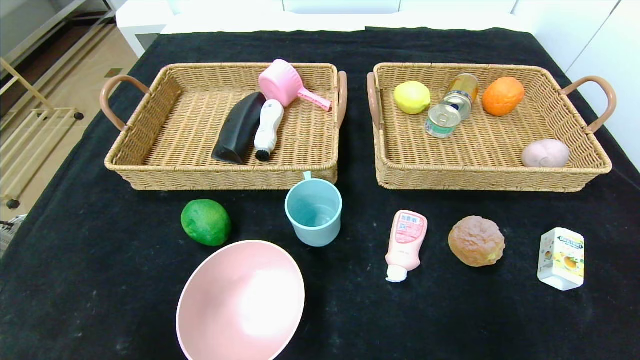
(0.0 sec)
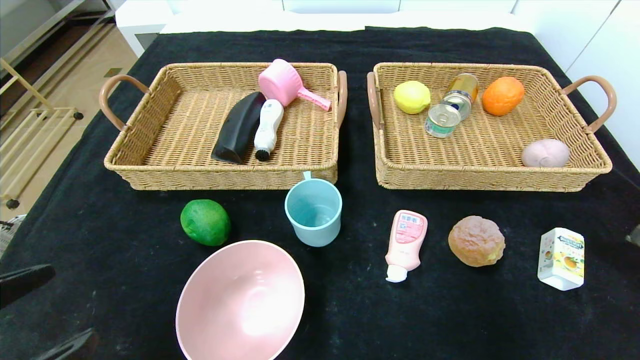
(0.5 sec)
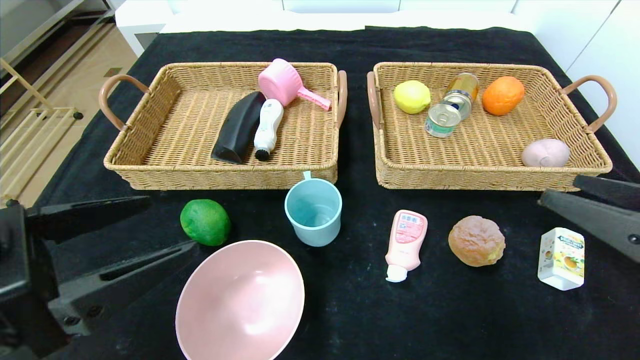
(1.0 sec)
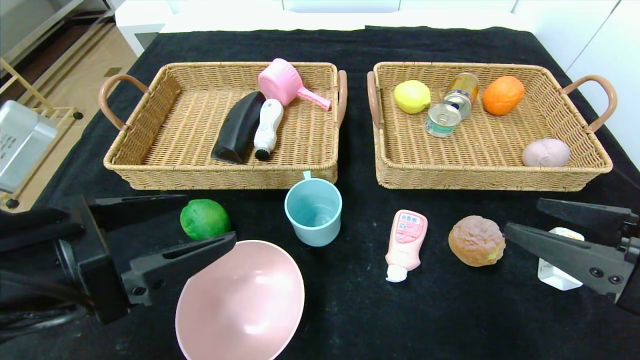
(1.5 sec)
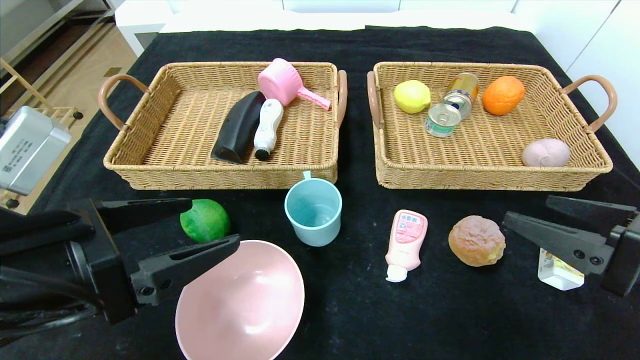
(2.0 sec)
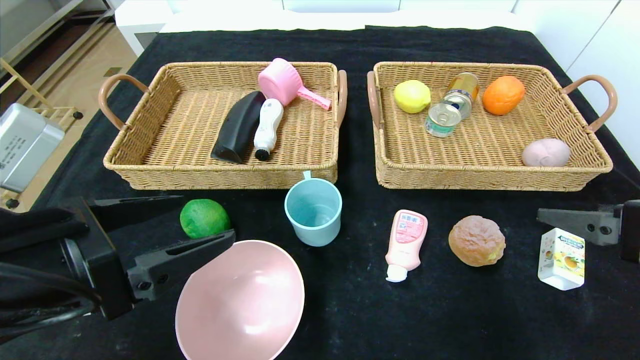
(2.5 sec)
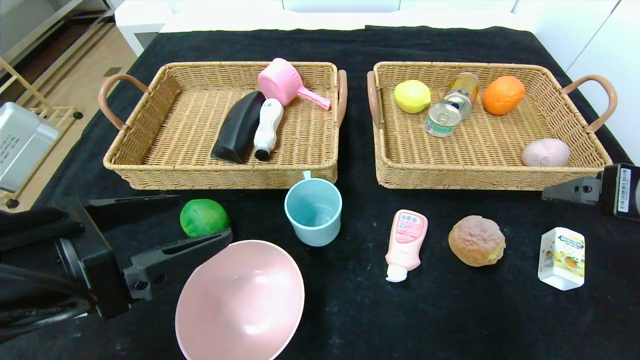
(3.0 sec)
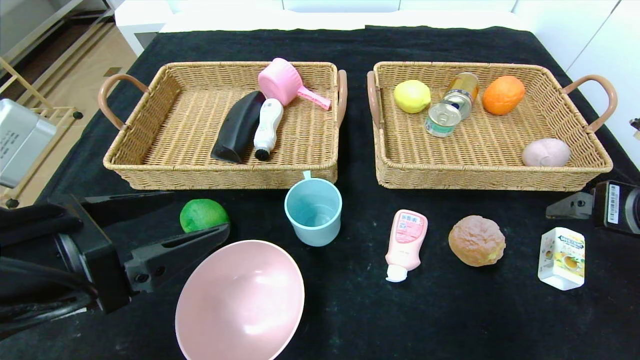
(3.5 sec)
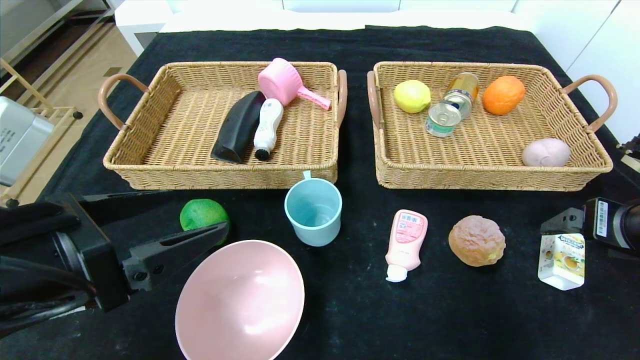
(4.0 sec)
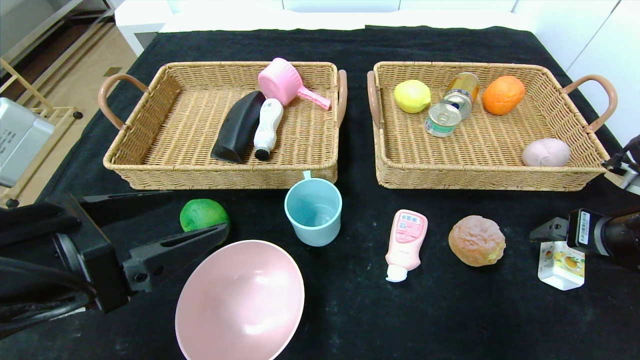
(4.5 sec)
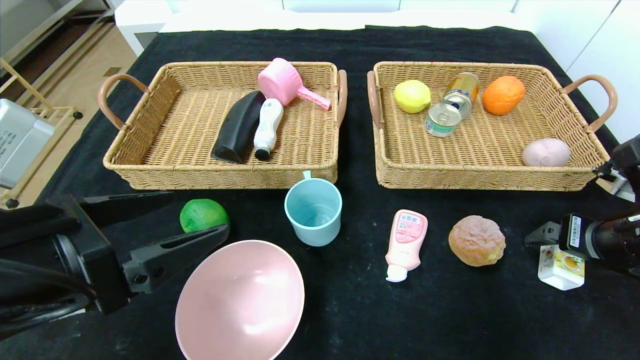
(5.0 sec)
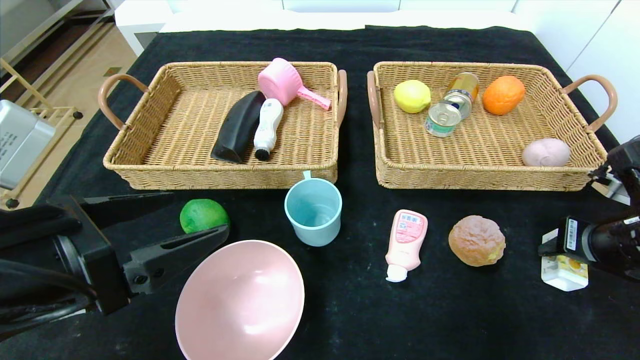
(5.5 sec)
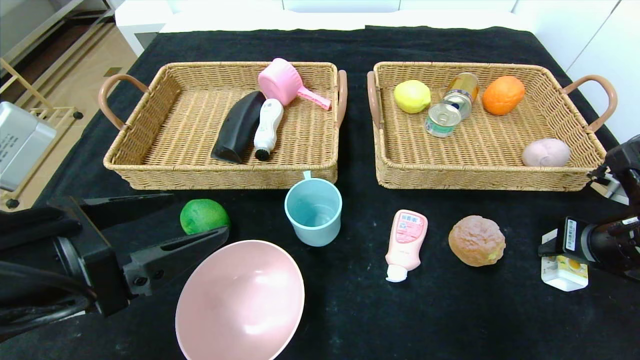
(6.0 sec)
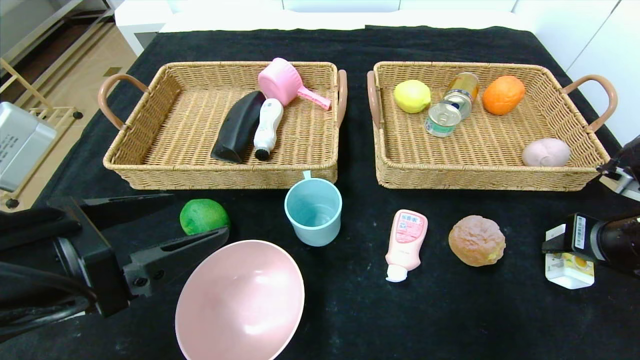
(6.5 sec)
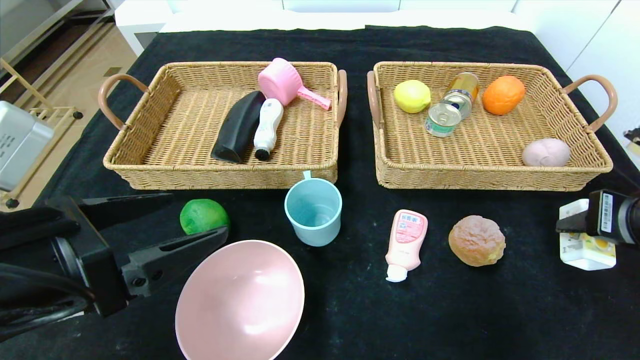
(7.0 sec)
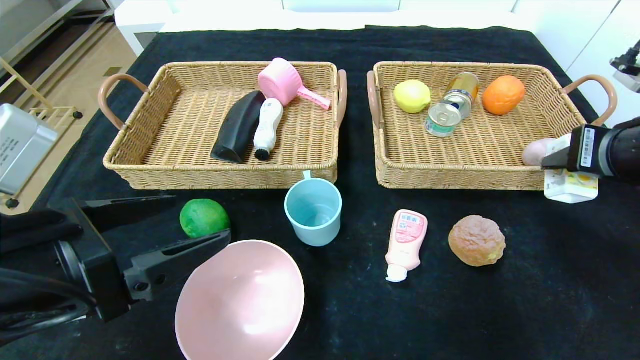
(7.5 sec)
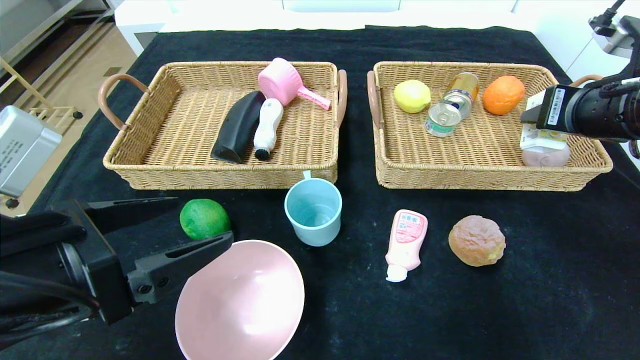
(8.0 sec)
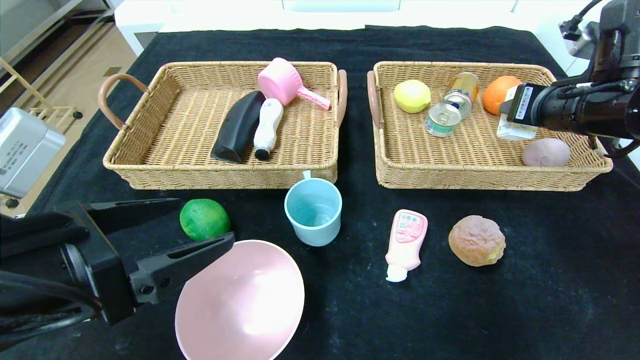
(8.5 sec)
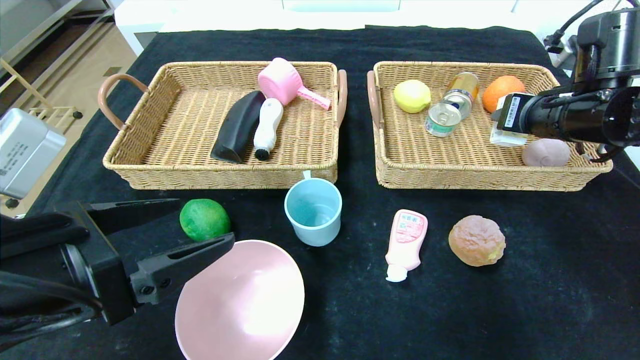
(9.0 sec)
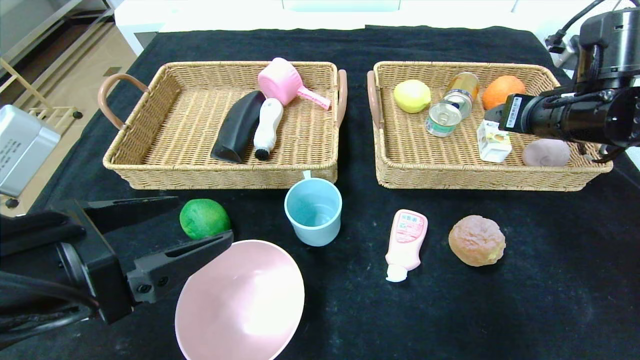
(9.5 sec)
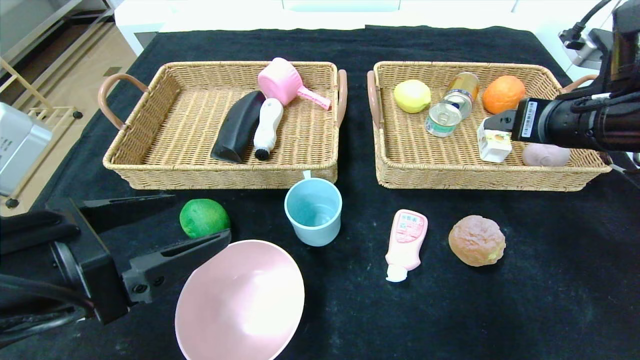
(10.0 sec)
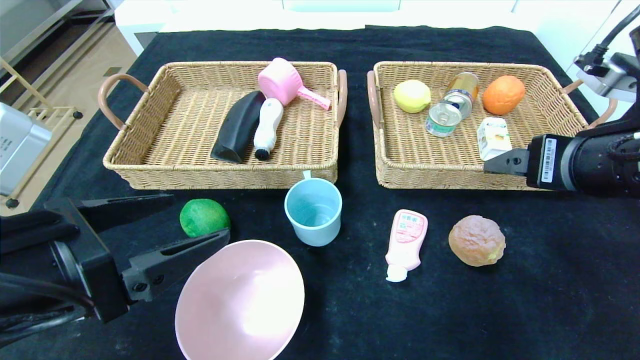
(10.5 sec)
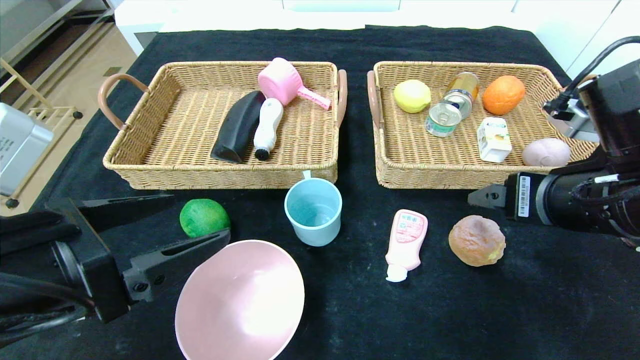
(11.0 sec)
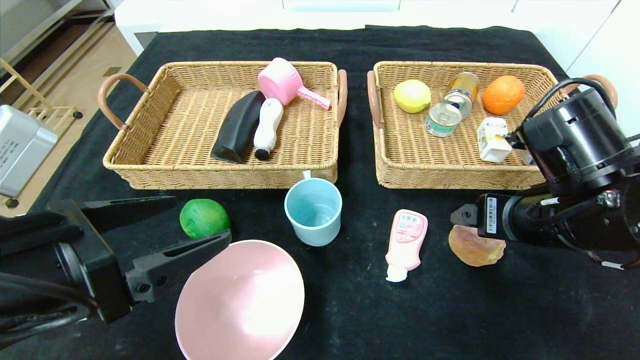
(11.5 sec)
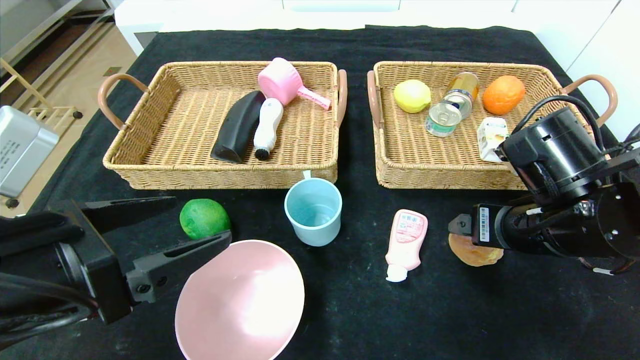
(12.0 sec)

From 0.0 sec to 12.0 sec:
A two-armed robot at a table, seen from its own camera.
Step, from 0.0 sec to 9.0 sec: Grasp the square chewing gum and put it in the right basket.
From 0.0 sec to 2.0 sec: The right gripper shifts some 20 cm forward, to the left and upward; the left gripper is displaced forward, upward and to the right by some 20 cm.
From 2.0 sec to 4.0 sec: The right gripper is displaced forward by about 5 cm.
From 4.0 sec to 6.0 sec: The right gripper closes up.
From 6.0 sec to 8.0 sec: The right gripper travels upward by approximately 10 cm.
From 8.0 sec to 10.0 sec: The right gripper opens.
From 10.0 sec to 12.0 sec: The right gripper moves downward and to the left, some 10 cm.

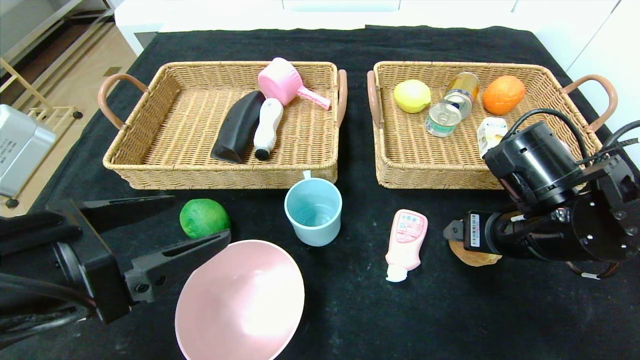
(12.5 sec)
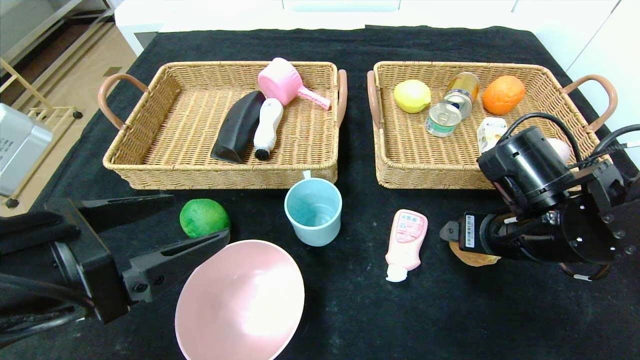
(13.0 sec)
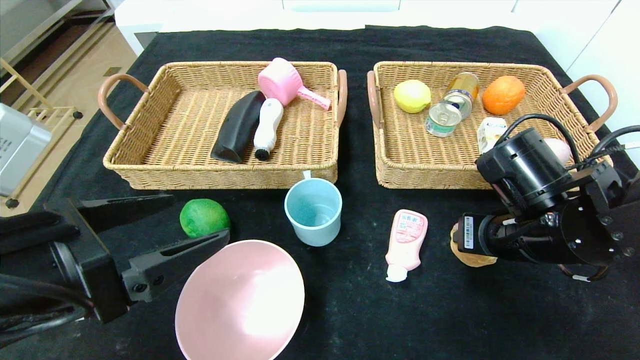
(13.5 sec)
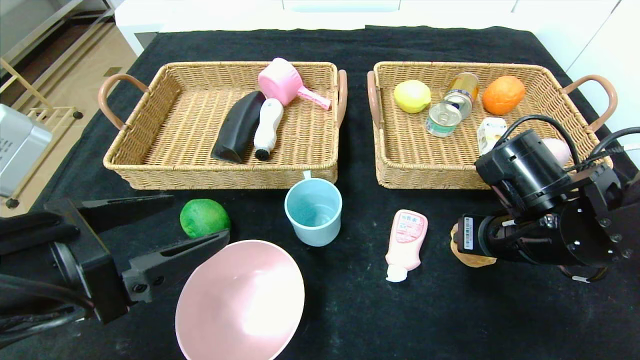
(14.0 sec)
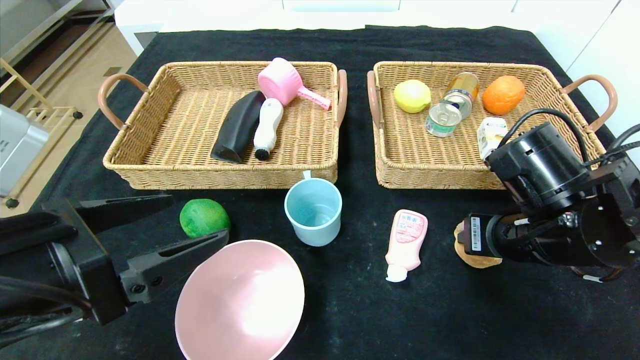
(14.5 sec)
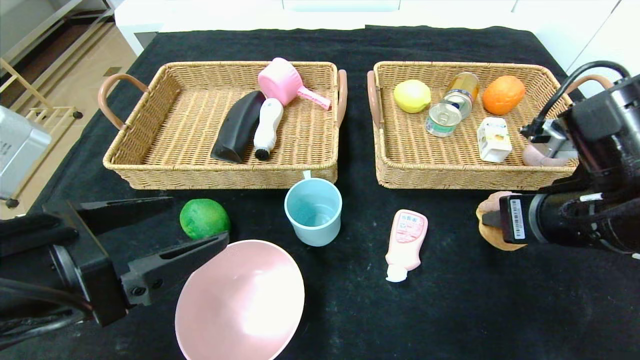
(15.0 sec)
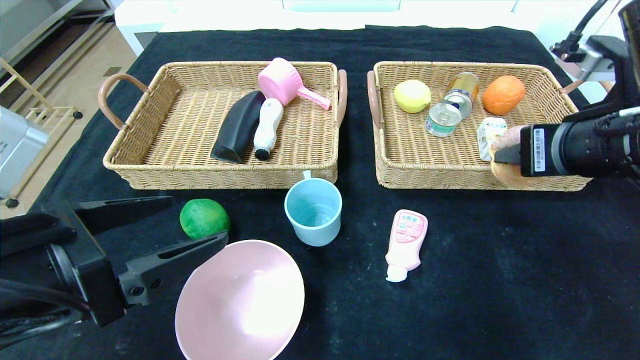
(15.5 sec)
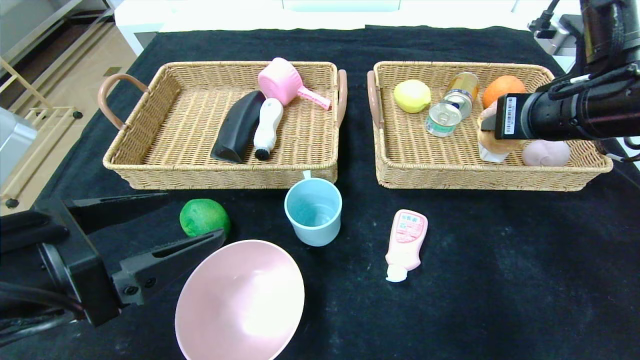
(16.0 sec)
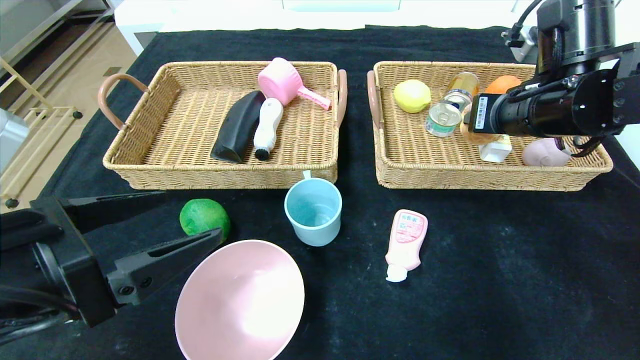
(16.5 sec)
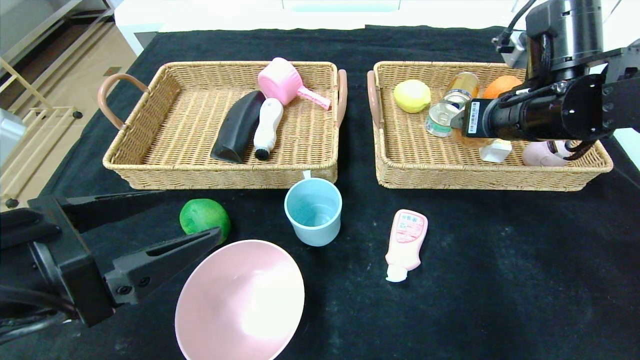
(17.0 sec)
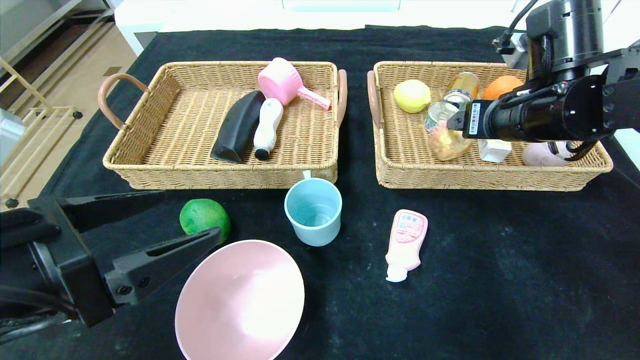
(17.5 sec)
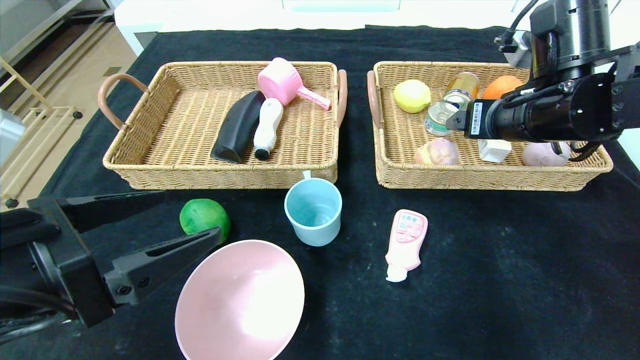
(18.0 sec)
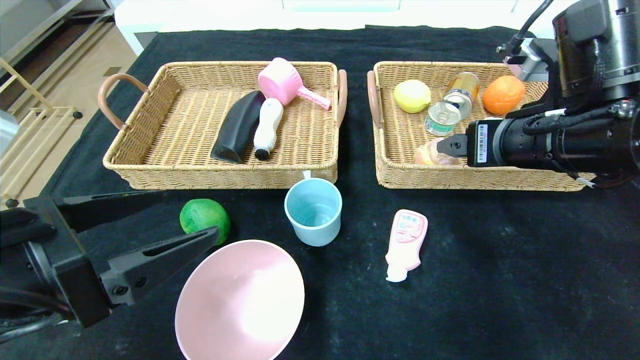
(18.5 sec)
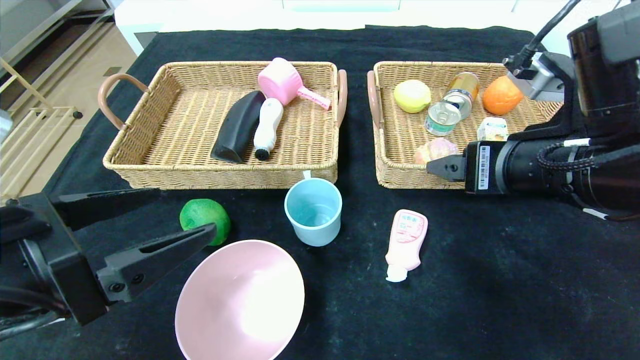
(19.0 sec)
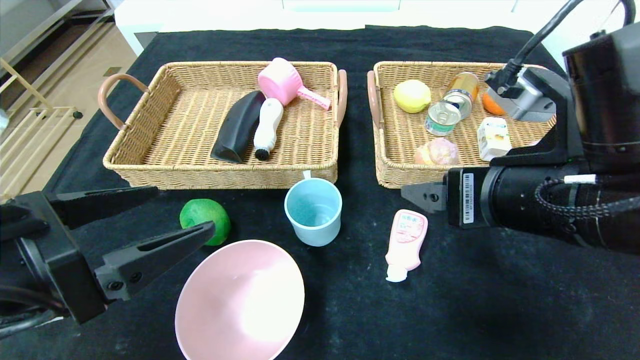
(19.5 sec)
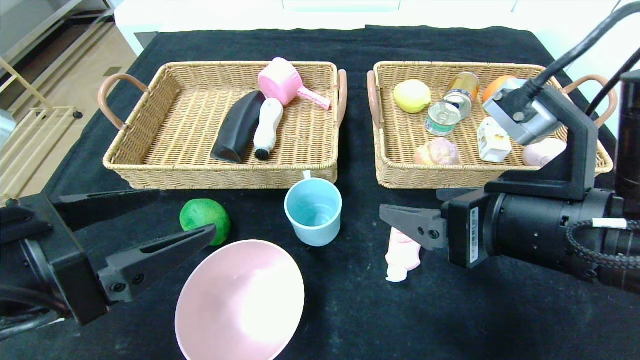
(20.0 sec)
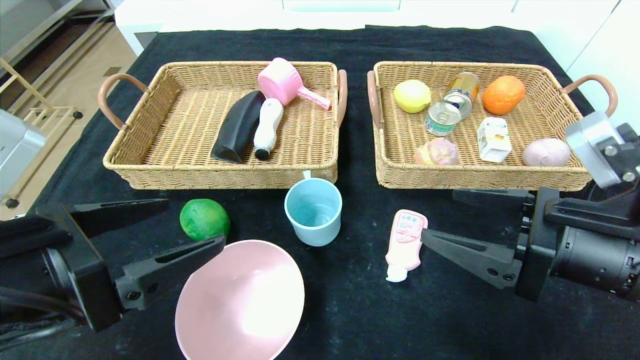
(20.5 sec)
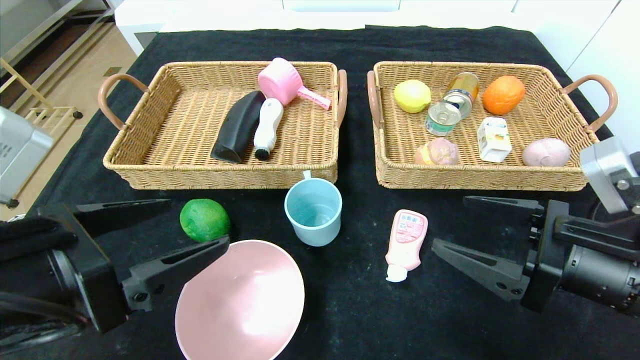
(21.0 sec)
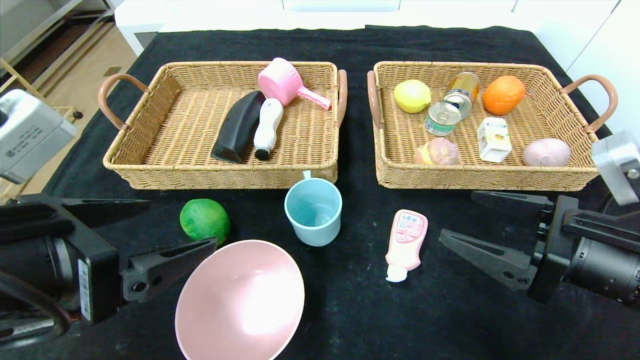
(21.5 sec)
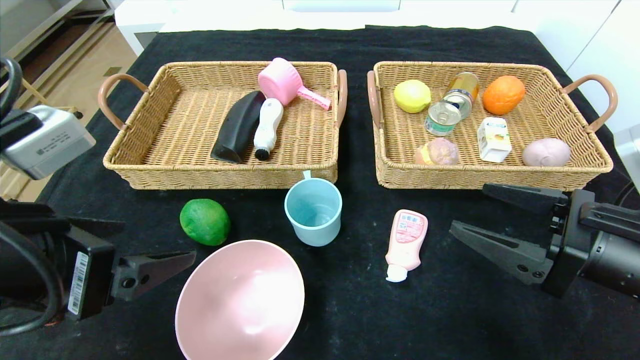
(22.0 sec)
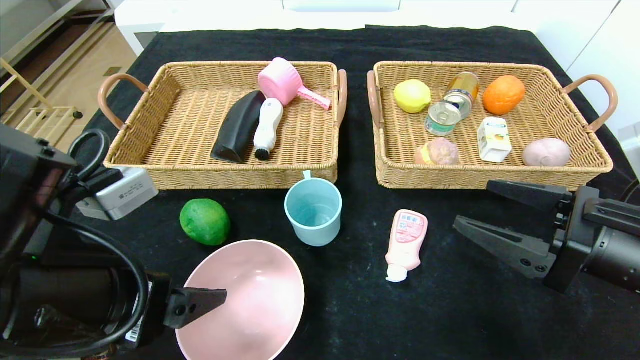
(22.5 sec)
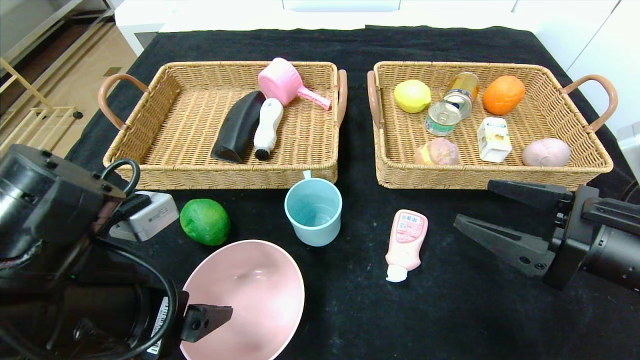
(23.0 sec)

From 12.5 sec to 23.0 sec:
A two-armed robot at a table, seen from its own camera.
Step, from 12.5 sec to 17.0 sec: Grasp the round bread and put it in the right basket.
From 12.5 sec to 14.5 sec: The right gripper closes.
From 14.5 sec to 16.5 sec: The right gripper travels upward and forward by roughly 15 cm.
From 16.5 sec to 19.0 sec: The right gripper heads backward, covering some 10 cm, and opens its fingers.
From 19.0 sec to 21.0 sec: The right gripper goes approximately 10 cm downward and to the right.
